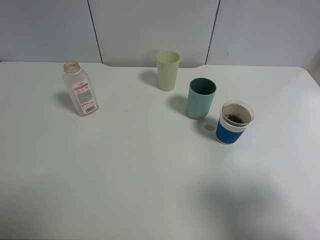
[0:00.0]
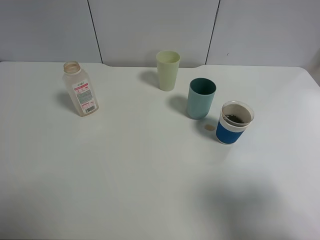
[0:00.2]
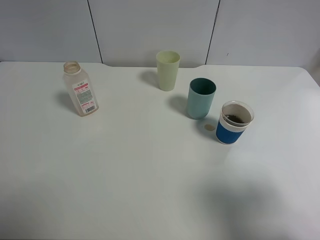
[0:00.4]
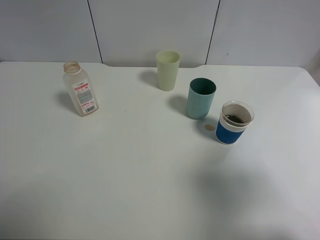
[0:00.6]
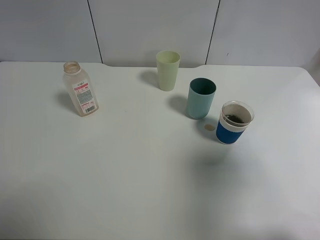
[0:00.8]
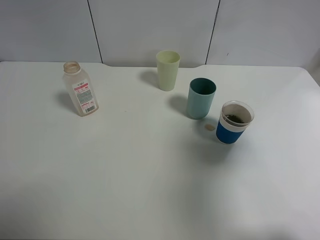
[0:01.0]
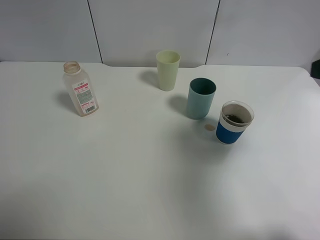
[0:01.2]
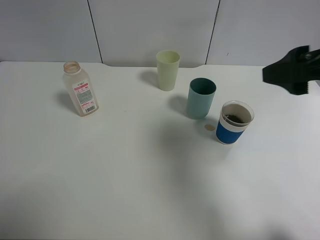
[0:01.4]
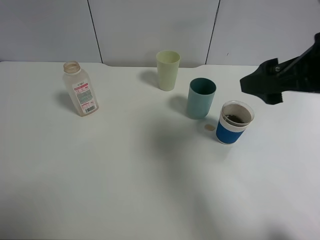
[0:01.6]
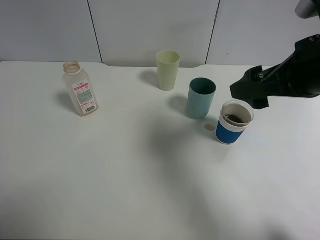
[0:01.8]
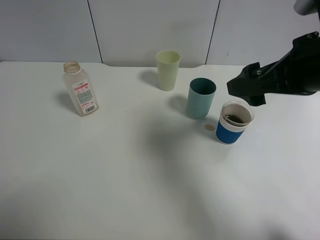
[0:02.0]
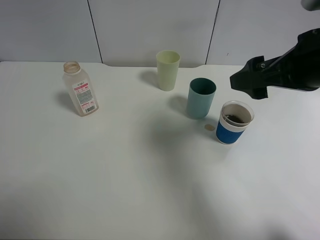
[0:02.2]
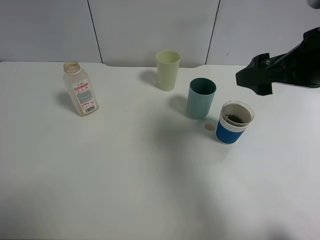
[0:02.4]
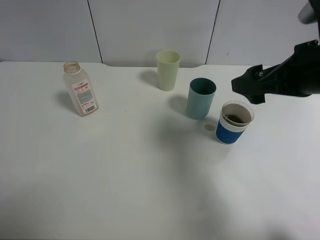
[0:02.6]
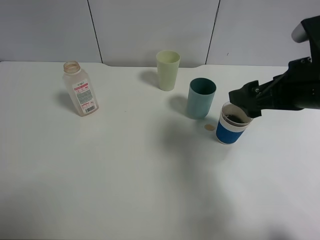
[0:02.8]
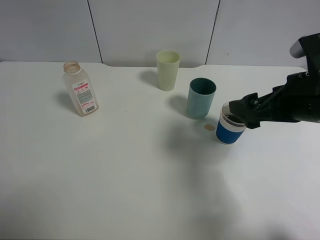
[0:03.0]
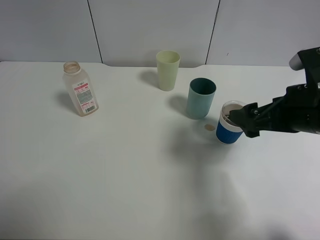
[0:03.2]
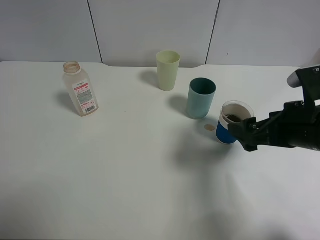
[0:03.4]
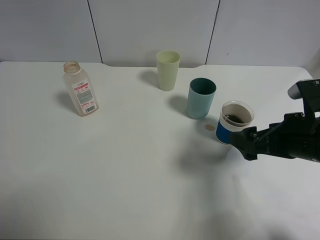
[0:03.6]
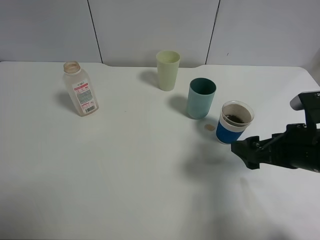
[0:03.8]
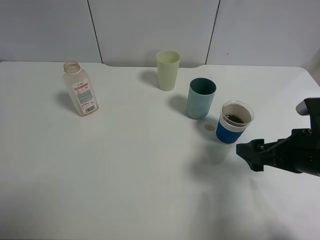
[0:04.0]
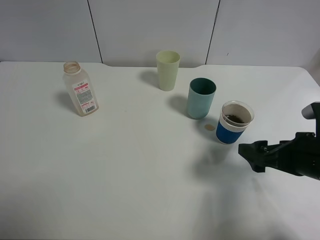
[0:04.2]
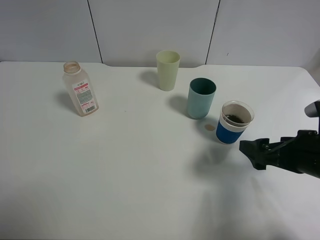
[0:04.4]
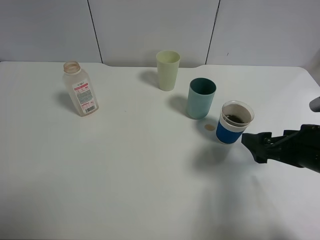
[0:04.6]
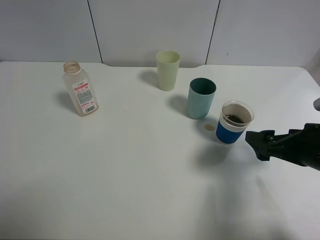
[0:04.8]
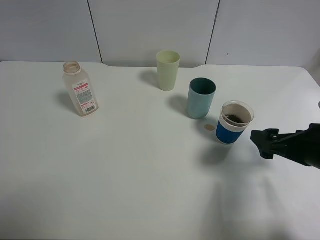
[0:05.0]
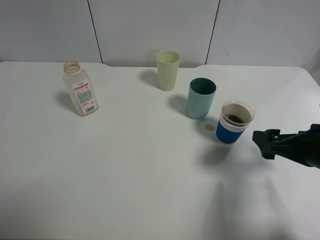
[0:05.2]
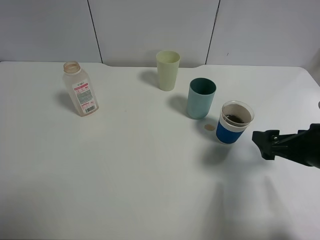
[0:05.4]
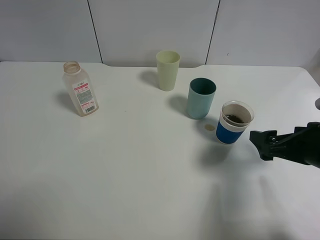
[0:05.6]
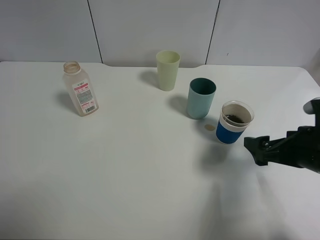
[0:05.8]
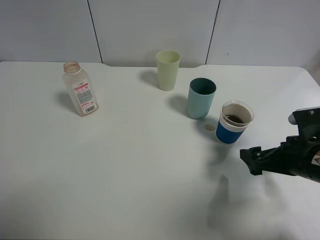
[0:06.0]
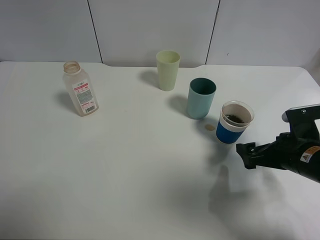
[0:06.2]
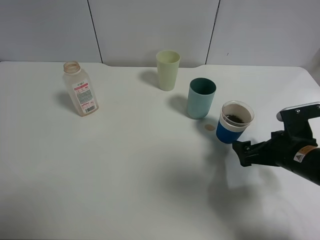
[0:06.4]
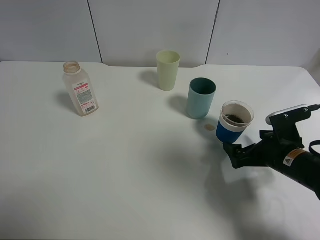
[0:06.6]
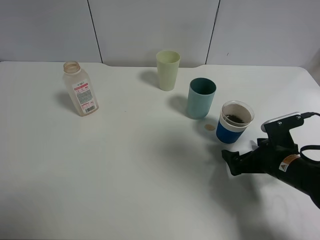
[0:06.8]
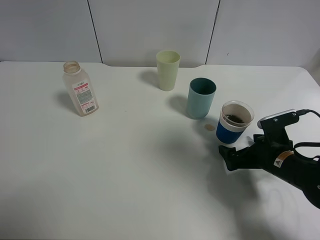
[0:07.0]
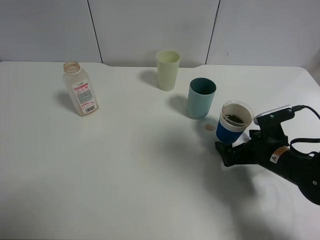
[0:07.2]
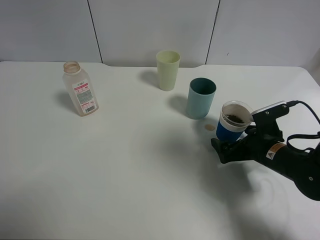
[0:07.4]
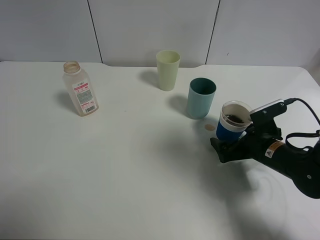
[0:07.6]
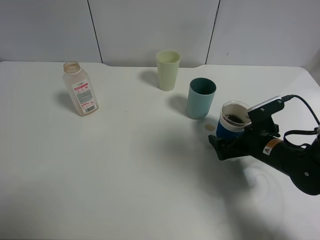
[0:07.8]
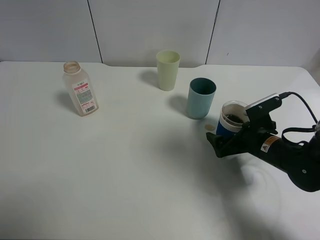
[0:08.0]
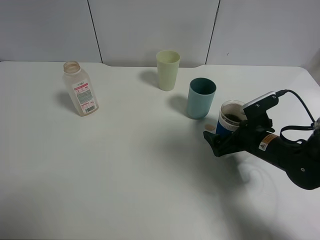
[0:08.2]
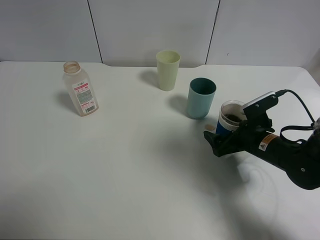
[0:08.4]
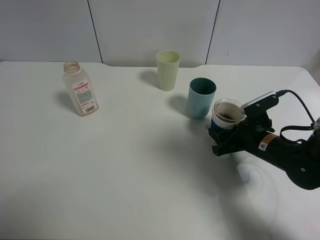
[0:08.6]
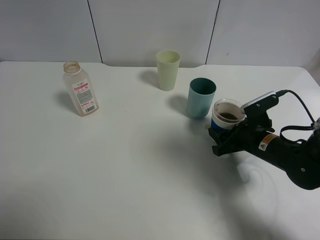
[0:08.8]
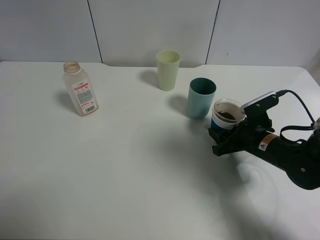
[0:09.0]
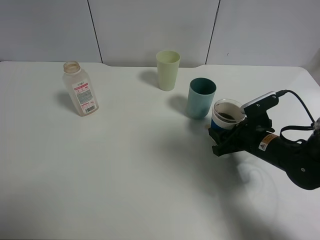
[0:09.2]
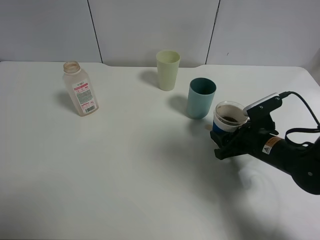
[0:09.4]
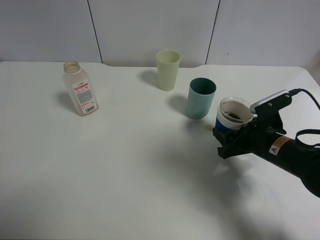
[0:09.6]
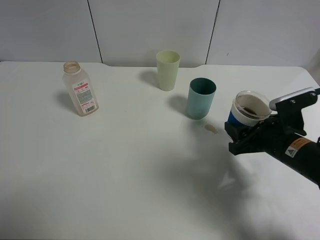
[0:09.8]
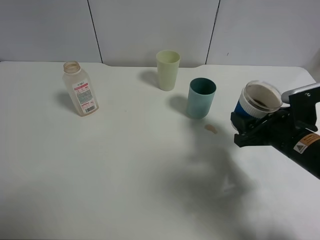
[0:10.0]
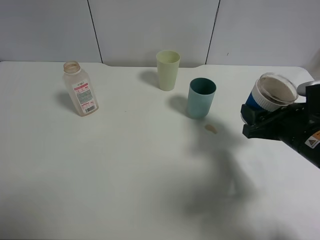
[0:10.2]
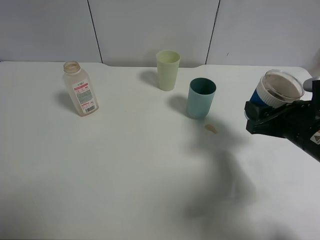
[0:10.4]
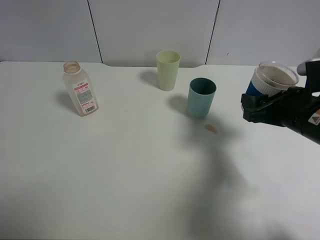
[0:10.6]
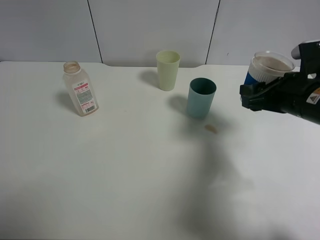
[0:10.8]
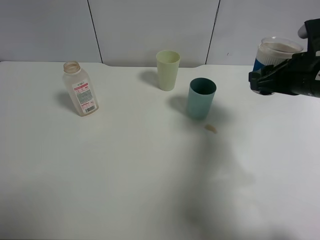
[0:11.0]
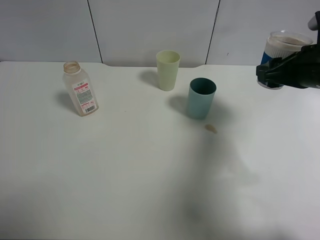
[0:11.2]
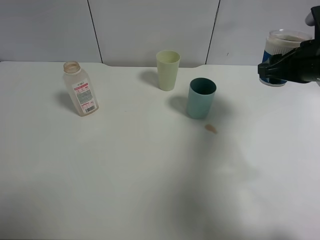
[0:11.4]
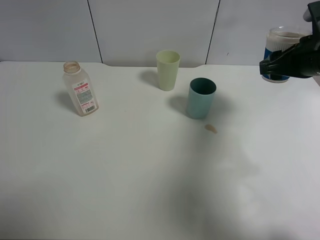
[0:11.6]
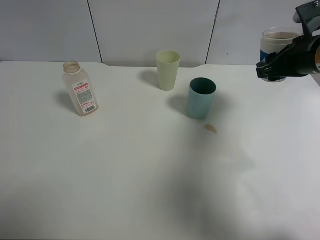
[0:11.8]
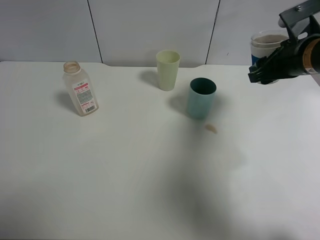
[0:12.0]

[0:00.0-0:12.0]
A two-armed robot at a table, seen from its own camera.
Task of the whole recording: use a clamp to hold the bottle of the drink, pour the beverage into a random cup, then clamp the cup containing the drink and pour the drink into another random cup.
Step, 0:00.0 to 0:09.6: Pick up the paper cup with right gripper.
0:00.0 to 0:01.6: The right gripper goes about 20 cm forward and to the left.
0:01.6 to 0:03.0: The right gripper heads downward, covering approximately 5 cm.
0:03.0 to 0:04.4: The right gripper shifts roughly 5 cm downward.
0:04.4 to 0:06.0: There are only small adjustments of the grippers.
0:06.0 to 0:07.6: The right gripper moves forward and downward, roughly 10 cm.
0:07.6 to 0:09.0: The right gripper closes up.
0:09.0 to 0:10.4: The right gripper goes some 10 cm upward.
0:10.4 to 0:12.0: The right gripper heads forward and upward, covering roughly 15 cm.

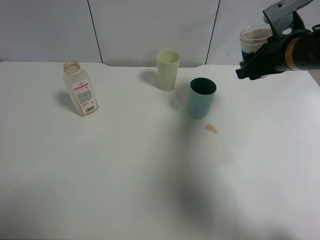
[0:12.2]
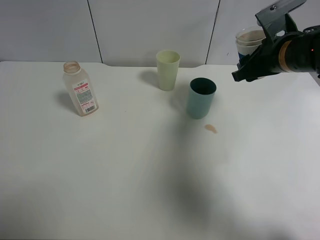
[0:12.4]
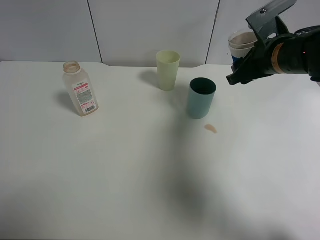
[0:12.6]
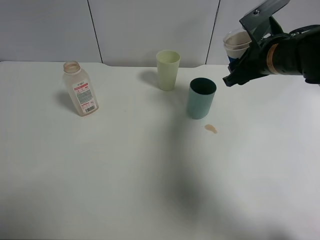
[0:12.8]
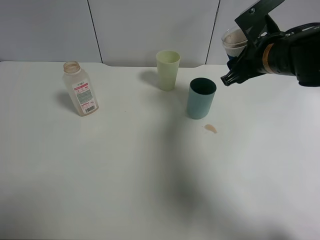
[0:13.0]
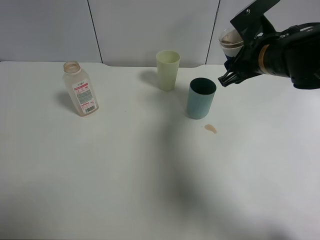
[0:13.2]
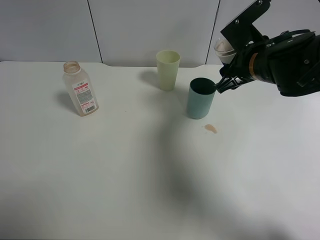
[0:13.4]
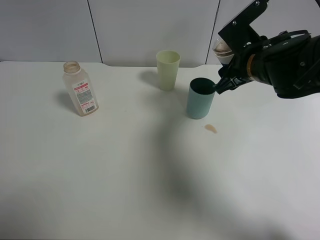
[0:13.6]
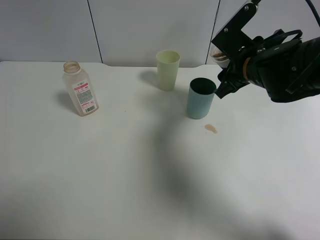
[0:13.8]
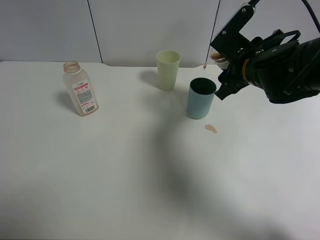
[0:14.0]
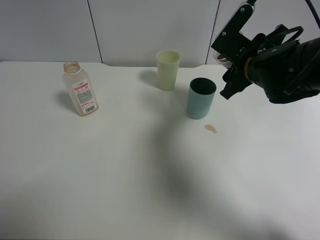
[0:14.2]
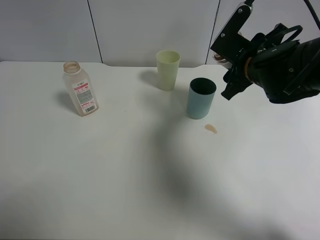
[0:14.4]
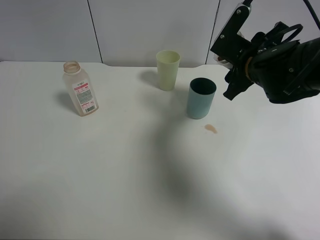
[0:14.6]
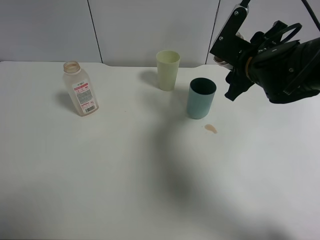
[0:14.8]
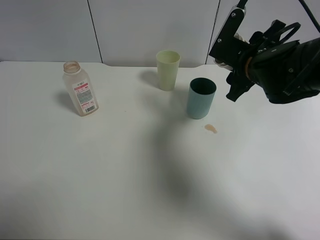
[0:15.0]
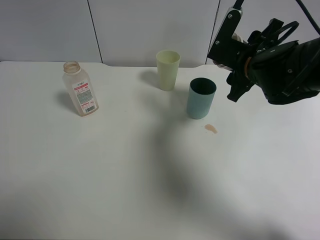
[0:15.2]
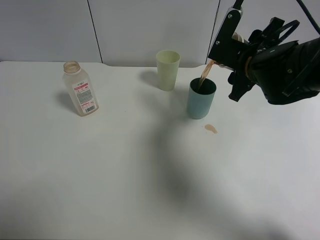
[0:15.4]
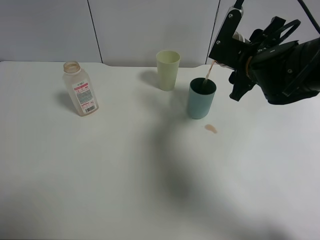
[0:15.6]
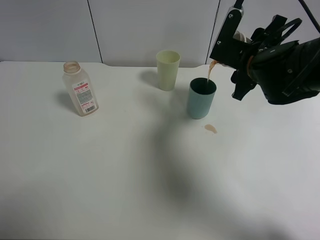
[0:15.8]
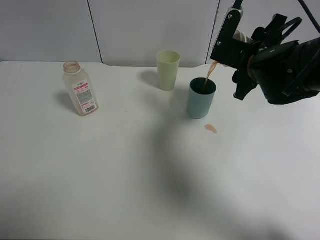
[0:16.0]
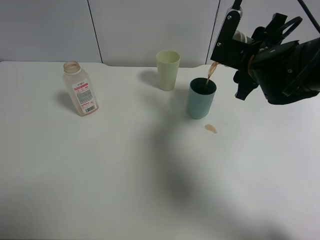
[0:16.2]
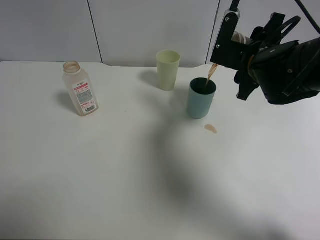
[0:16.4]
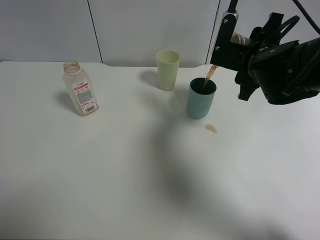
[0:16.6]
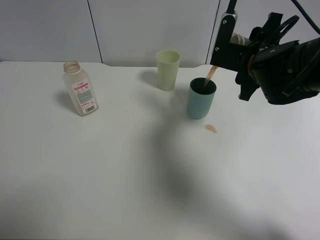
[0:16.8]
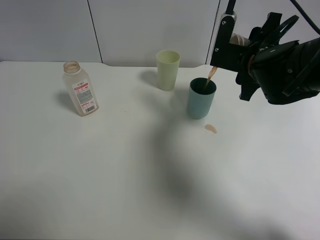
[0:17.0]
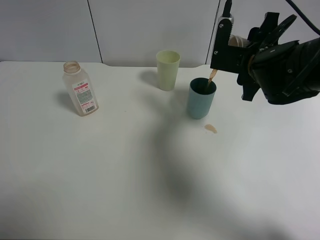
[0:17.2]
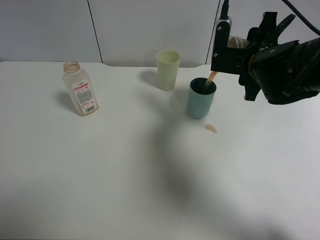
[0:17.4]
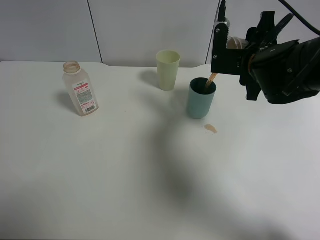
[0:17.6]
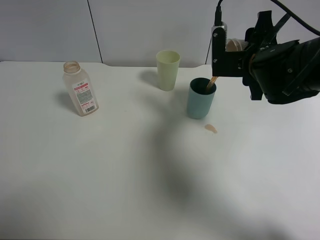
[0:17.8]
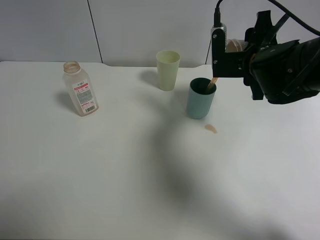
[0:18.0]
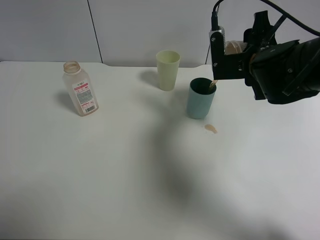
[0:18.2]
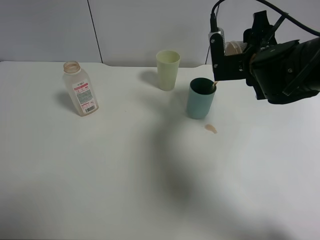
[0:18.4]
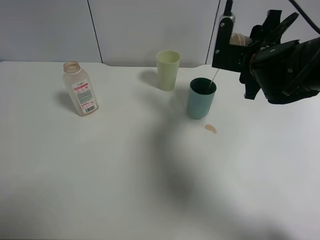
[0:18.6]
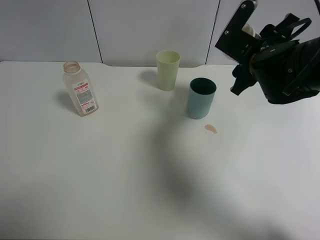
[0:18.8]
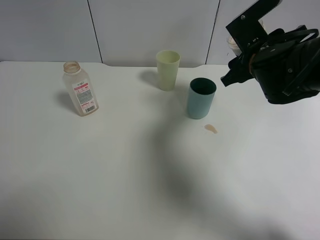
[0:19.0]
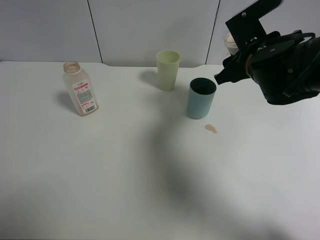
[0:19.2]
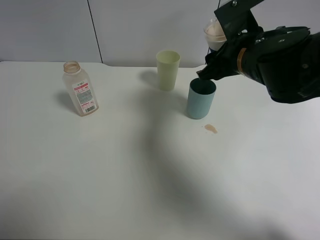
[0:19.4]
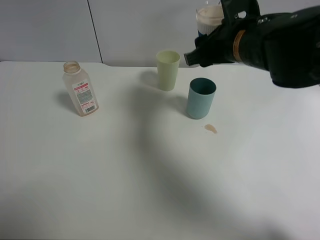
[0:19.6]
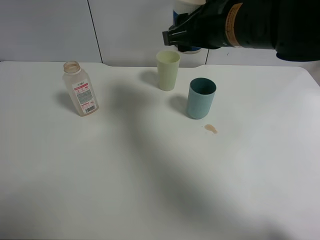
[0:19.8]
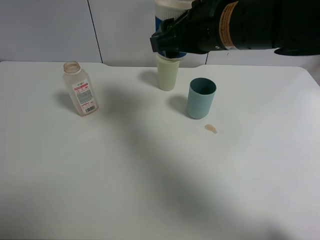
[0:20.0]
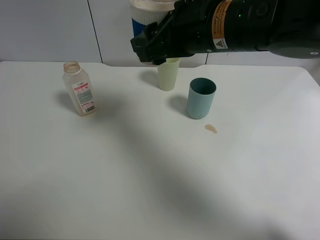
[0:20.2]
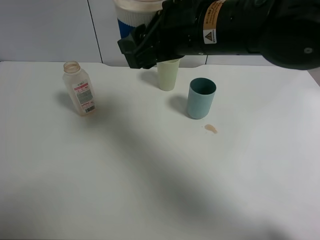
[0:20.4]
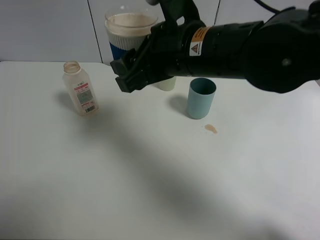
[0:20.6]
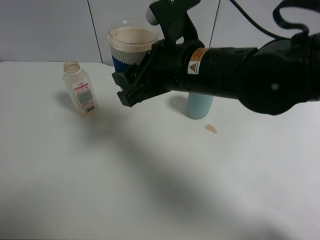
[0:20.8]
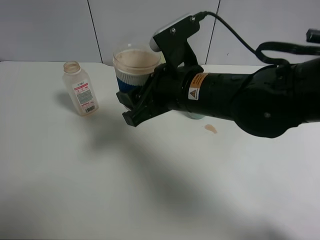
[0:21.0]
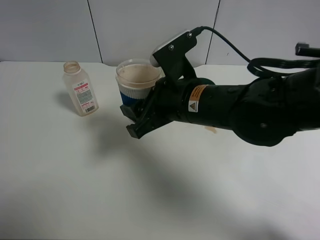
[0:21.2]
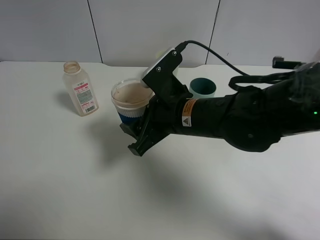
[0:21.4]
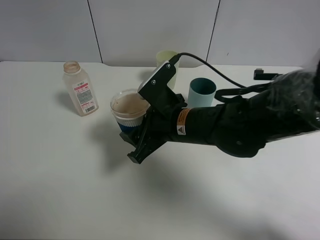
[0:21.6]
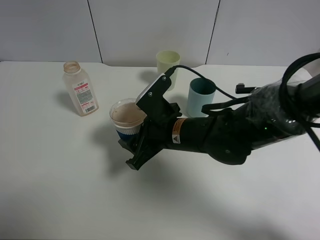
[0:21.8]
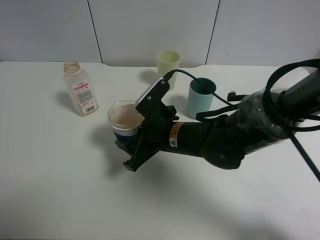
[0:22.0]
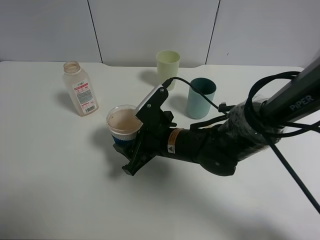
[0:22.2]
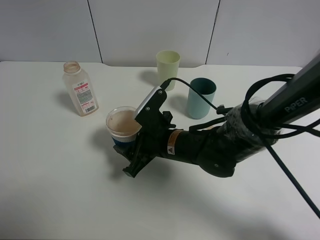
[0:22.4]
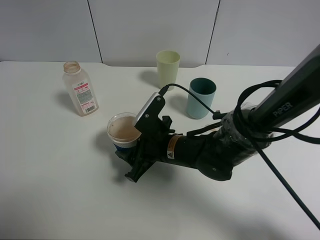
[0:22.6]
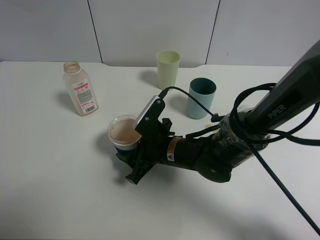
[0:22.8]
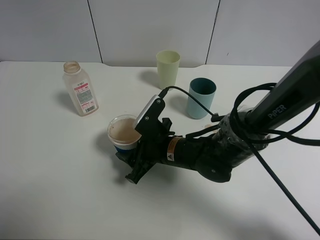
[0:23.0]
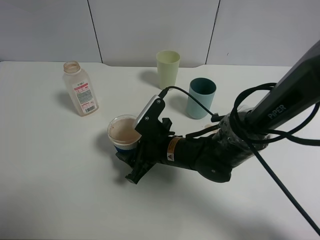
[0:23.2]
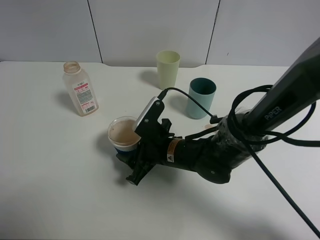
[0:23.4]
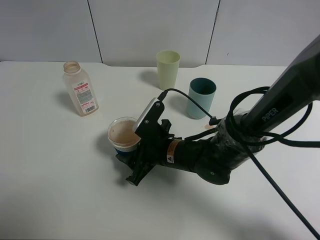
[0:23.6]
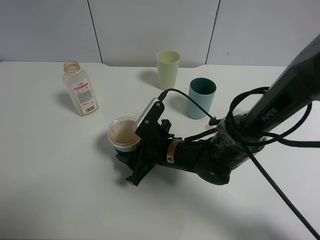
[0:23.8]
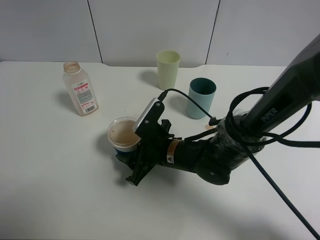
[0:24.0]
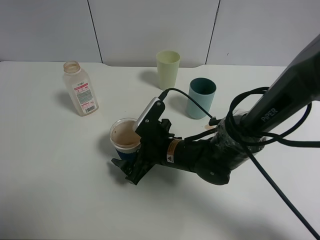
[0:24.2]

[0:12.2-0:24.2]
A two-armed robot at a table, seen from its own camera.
Task of the whole recording: use a clamp to hold the bottle of the drink, pour the beverage into a random cup, then clamp the cup containing the drink and pour the drink into another random cup.
Step, 0:12.2 to 0:19.0: Pour the drink into the blue plastic cup with right gripper.
0:12.2 to 0:13.8: The right gripper travels to the left by some 5 cm.
0:13.8 to 0:15.2: The grippers make only small movements.
0:15.2 to 0:16.6: There are only small adjustments of the grippers.
0:18.2 to 0:19.8: The right gripper shifts approximately 10 cm to the left and upward.
0:19.8 to 0:21.2: The right gripper shifts roughly 10 cm downward and backward.
0:21.2 to 0:22.6: The right gripper is displaced downward by approximately 10 cm.
0:22.6 to 0:24.2: The right gripper opens its fingers.
